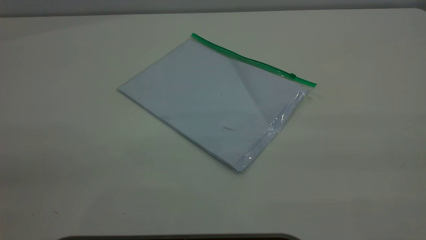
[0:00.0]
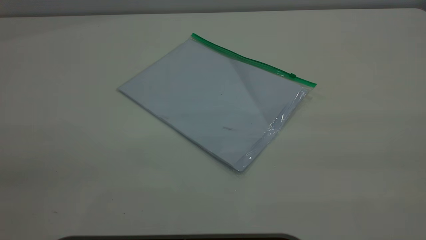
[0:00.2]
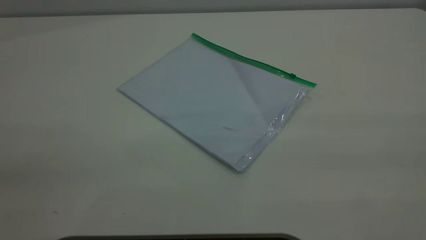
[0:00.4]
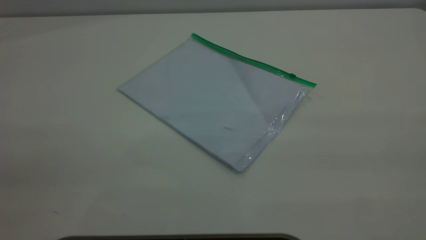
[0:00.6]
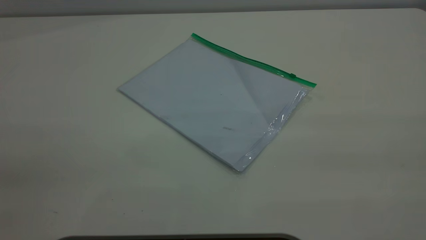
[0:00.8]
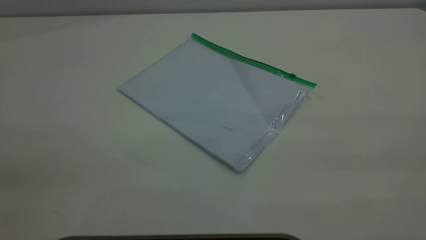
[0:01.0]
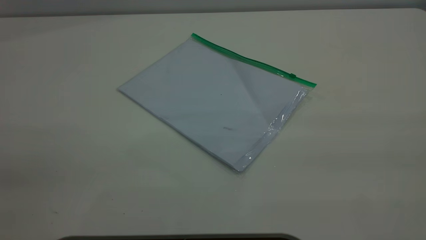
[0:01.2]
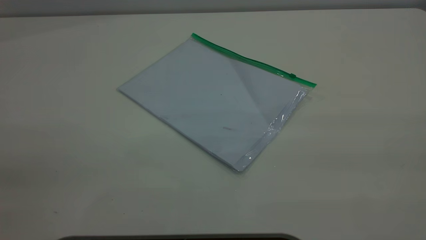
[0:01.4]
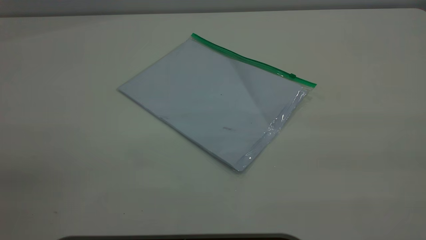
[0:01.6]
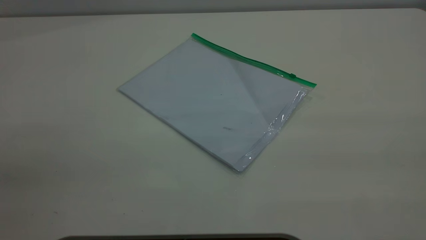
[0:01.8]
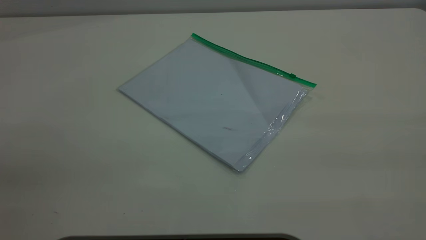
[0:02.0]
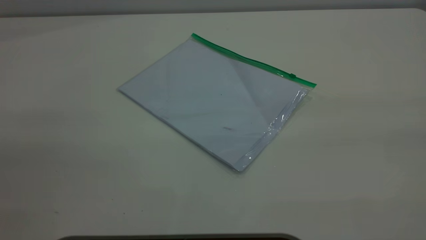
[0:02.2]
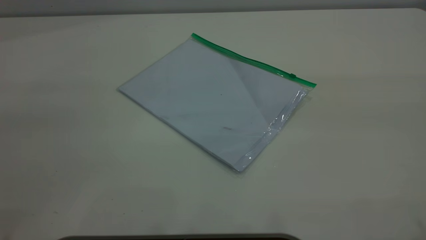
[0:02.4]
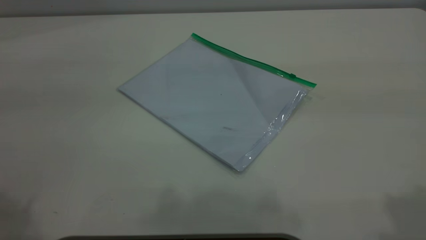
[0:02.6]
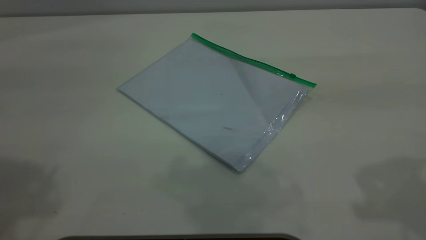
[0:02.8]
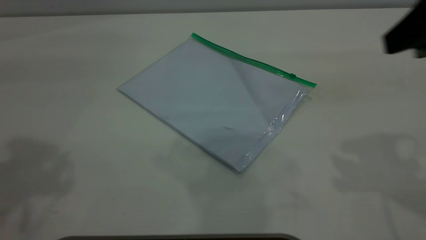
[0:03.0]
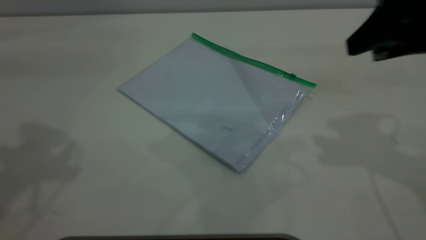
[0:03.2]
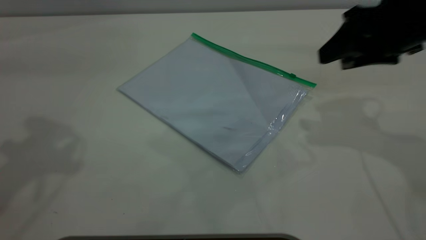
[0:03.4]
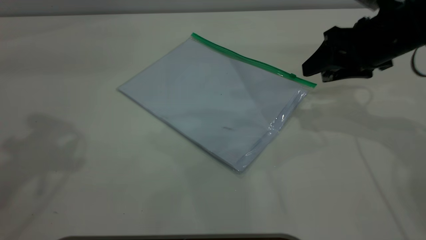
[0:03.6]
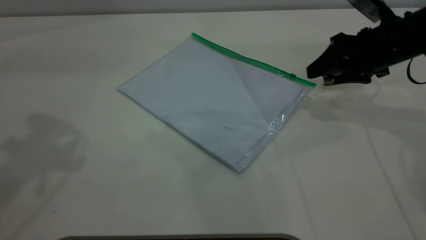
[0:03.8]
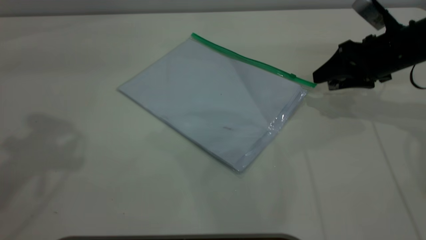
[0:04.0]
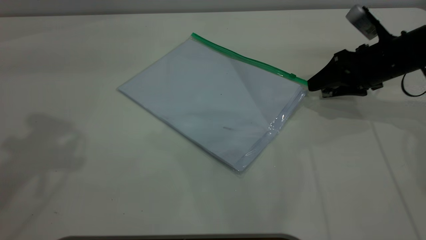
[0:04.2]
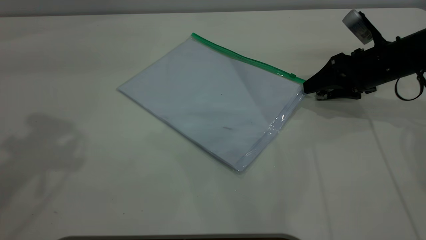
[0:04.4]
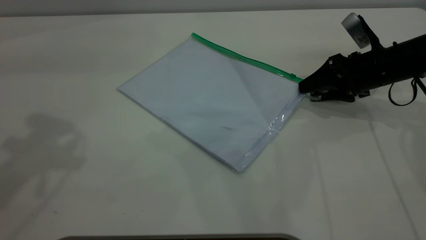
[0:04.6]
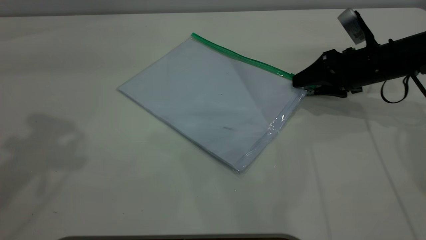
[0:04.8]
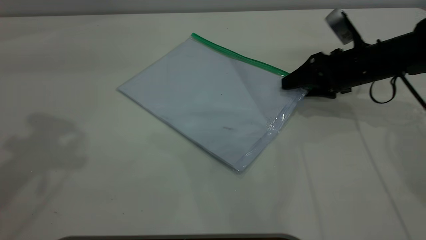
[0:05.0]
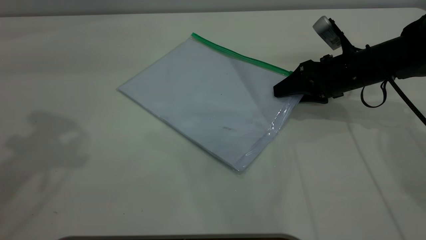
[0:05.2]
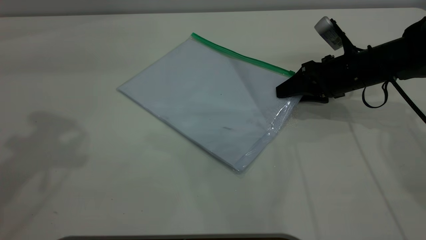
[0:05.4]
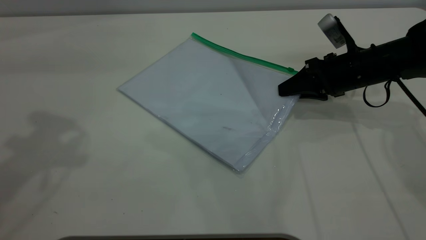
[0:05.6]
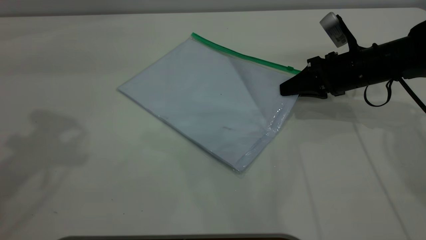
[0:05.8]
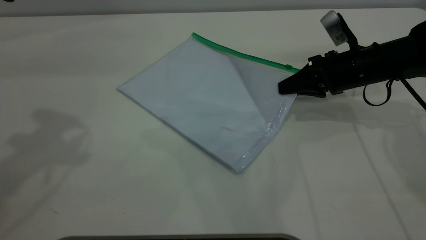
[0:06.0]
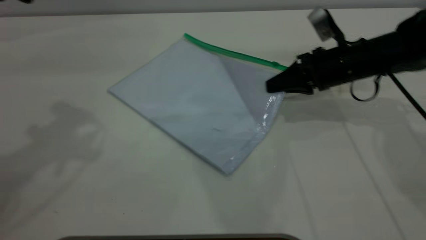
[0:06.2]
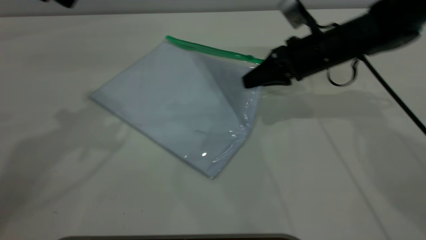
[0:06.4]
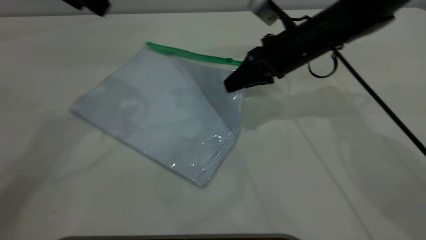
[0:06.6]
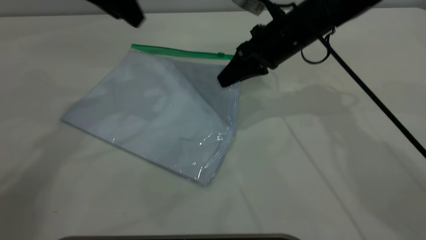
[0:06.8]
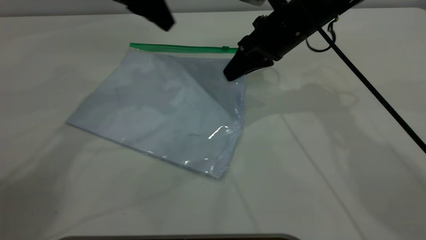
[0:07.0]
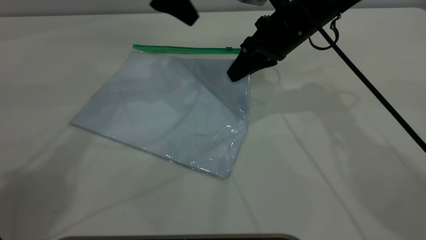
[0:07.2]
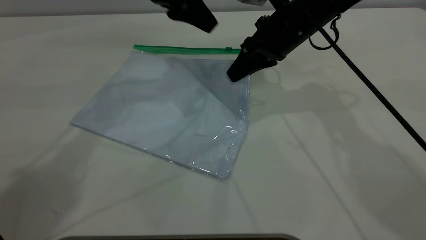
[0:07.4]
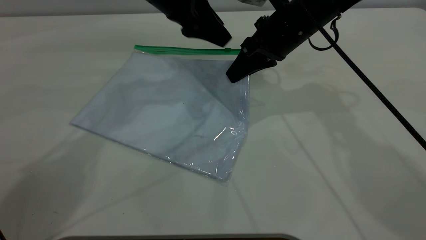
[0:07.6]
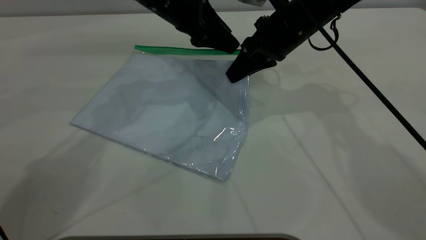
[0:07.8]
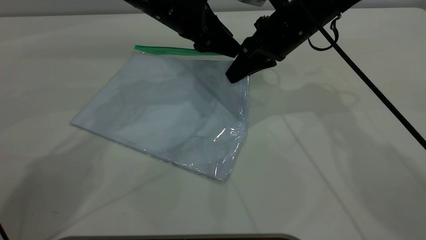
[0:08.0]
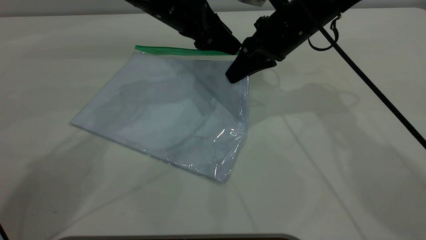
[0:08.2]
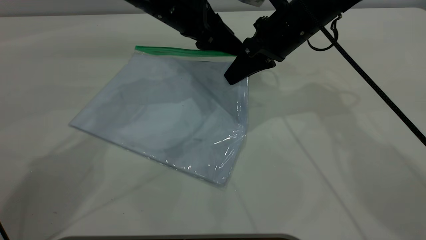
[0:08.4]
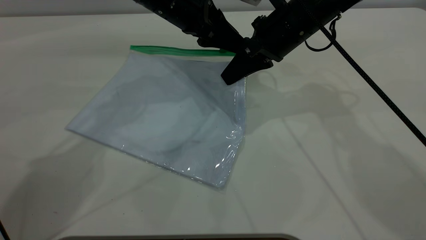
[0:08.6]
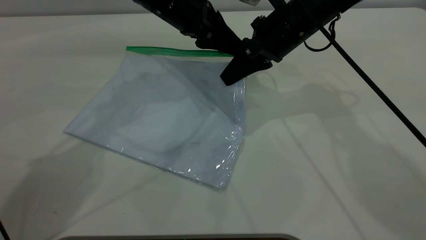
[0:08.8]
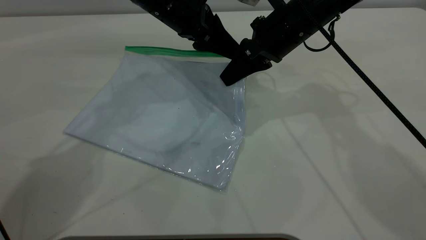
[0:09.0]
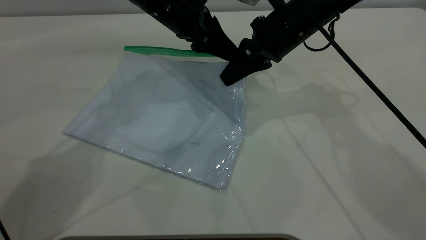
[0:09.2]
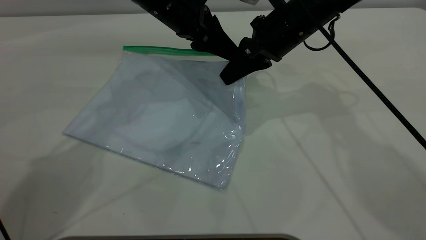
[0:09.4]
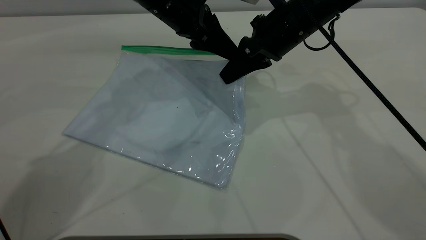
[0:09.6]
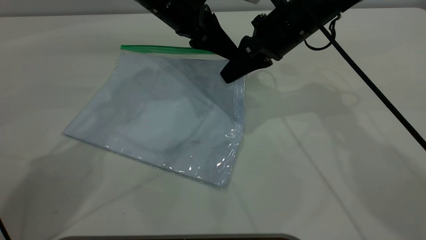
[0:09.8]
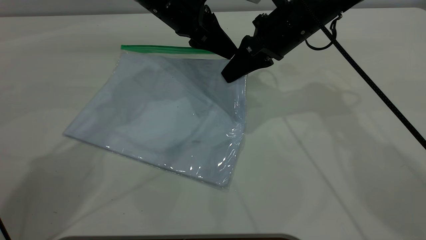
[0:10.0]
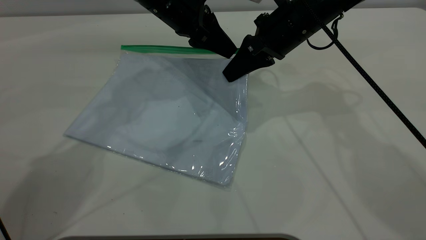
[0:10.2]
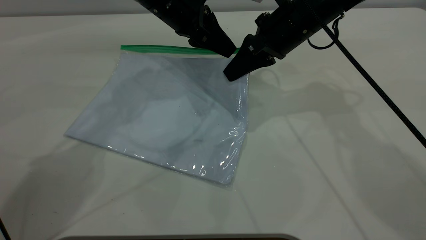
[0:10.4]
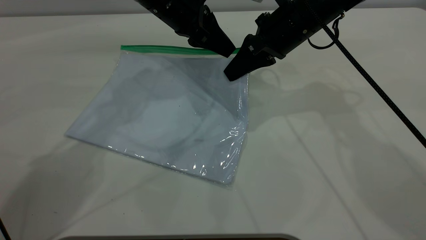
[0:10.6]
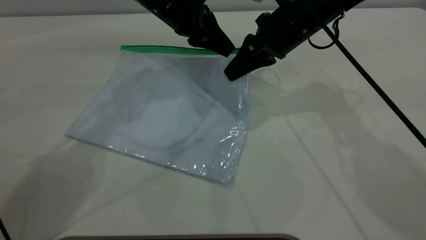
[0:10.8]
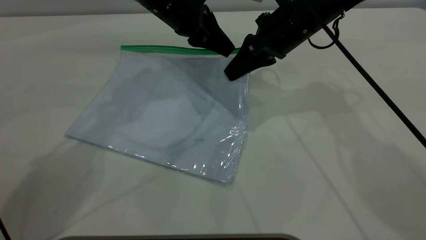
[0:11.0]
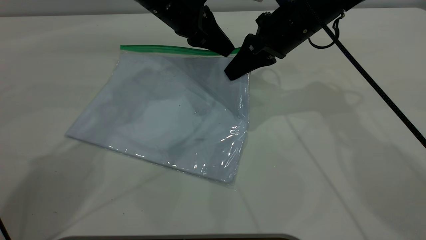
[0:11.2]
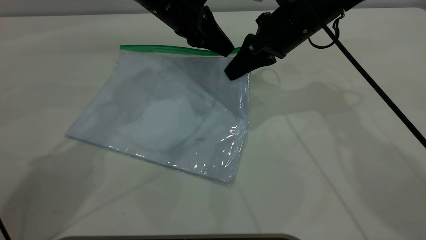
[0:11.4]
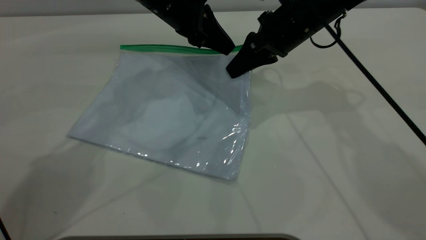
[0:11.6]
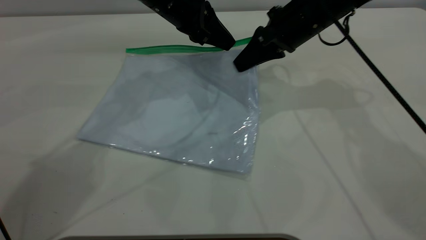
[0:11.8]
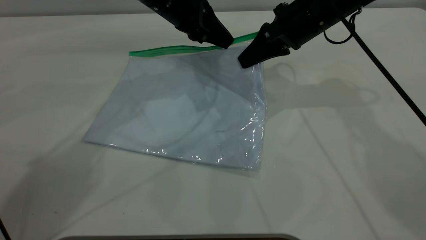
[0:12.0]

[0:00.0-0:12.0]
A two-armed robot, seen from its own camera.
Step, 0:00.0 to 0:06.8: Pick up the transparent plastic bag with the right gripper.
0:00.0 to 0:01.6: The two grippers keep their place.
0:01.6 to 0:03.0: The right gripper moves forward, roughly 25 cm.
0:03.0 to 0:04.4: The right gripper moves downward and forward, roughly 25 cm.
0:04.4 to 0:06.0: The right gripper closes up.
0:06.0 to 0:07.6: The left gripper goes some 30 cm to the right, downward and forward; the right gripper shifts roughly 15 cm to the left and upward.
0:07.6 to 0:09.0: There are only small adjustments of the grippers.
0:09.0 to 0:10.4: The left gripper closes.
0:10.4 to 0:12.0: The grippers stay close to where they were, moving slightly.

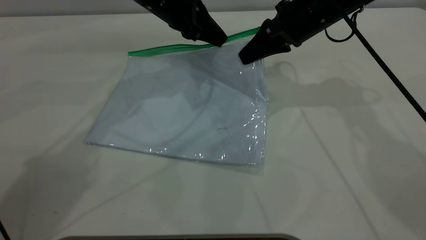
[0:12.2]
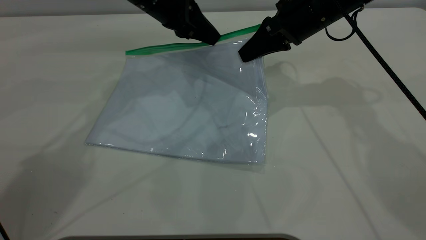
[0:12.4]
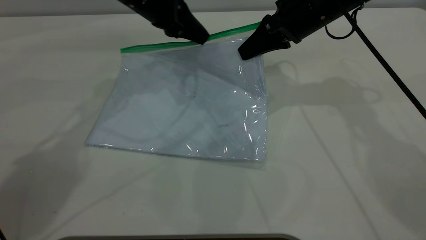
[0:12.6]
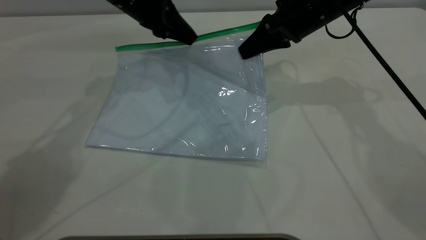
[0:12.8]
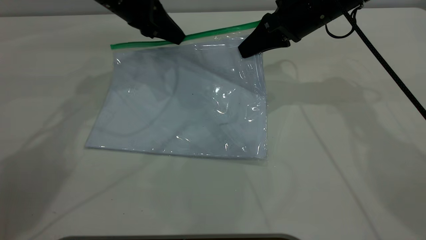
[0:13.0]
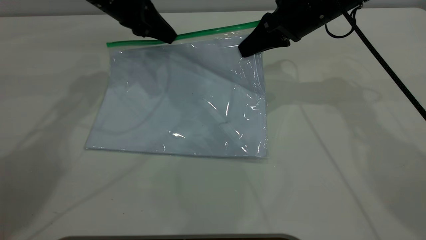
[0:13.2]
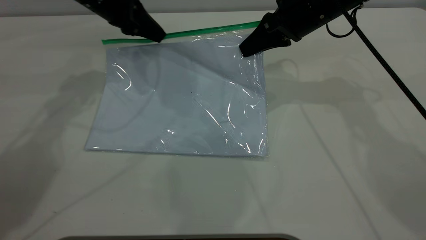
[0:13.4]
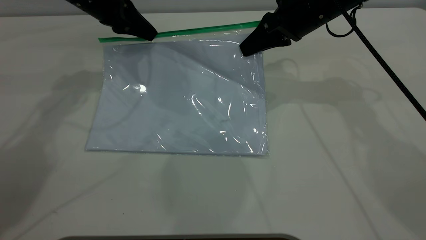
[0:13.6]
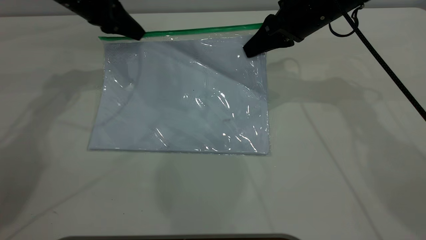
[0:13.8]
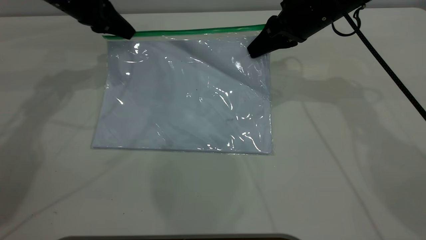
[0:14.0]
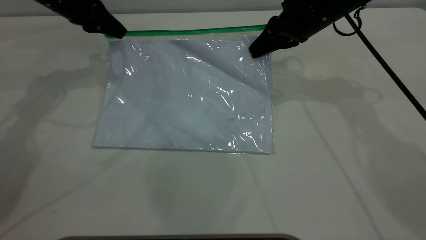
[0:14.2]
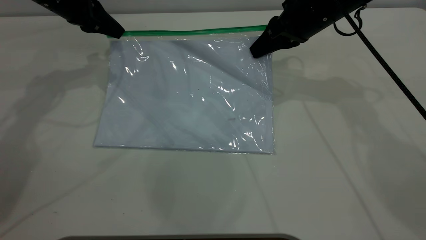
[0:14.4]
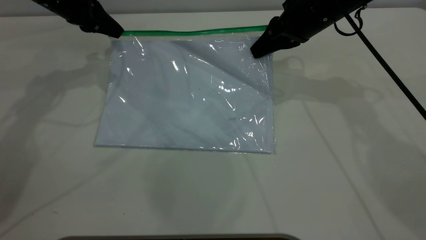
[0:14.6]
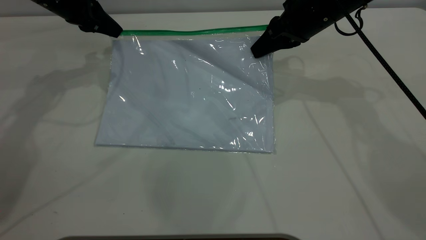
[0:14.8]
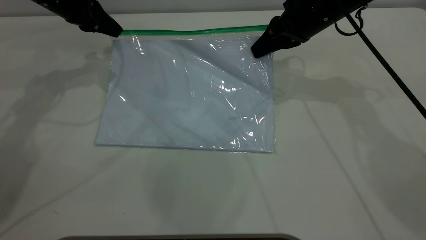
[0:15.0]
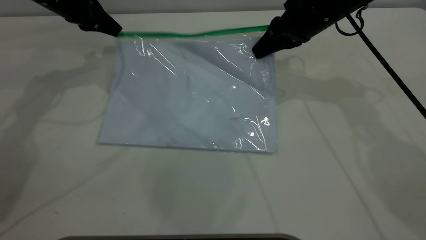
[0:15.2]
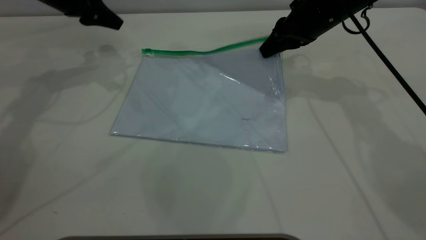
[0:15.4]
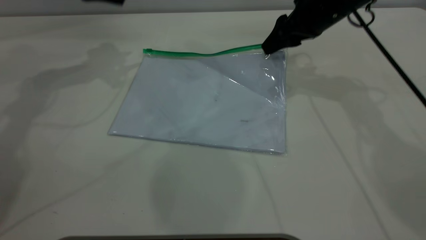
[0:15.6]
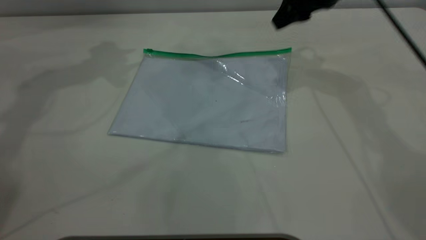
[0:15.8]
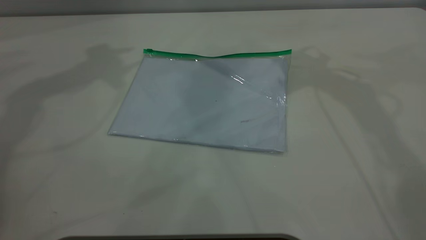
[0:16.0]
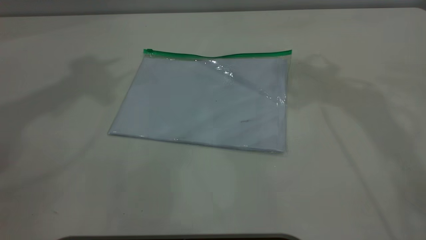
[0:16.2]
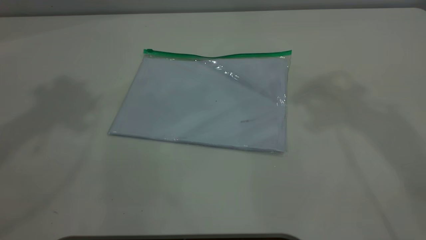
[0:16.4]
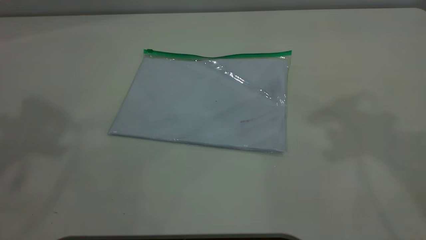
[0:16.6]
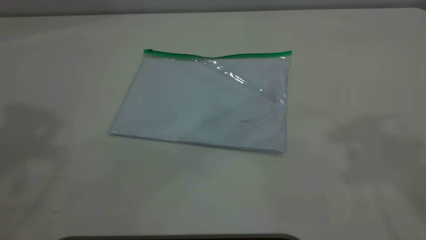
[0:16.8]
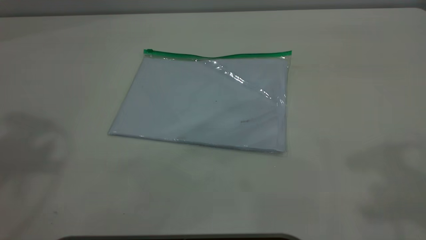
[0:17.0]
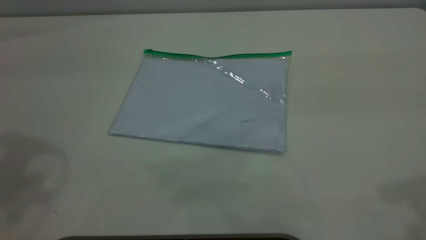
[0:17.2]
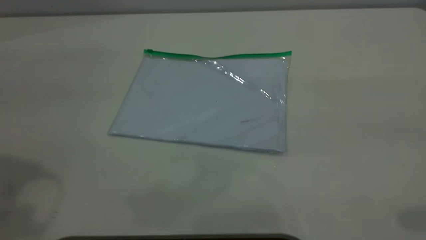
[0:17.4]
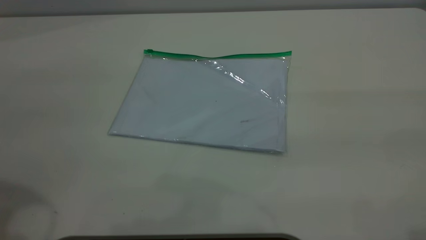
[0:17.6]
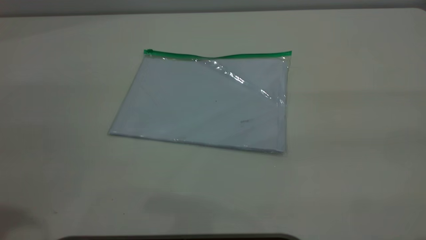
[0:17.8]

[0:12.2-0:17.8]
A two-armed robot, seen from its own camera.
Step, 0:12.2 to 0:15.2: Pulling up the zipper on the transparent plastic bag with the left gripper to close it.
Step, 0:15.4 to 0:16.4: Place the transparent plastic bag.
0:12.2 to 0:13.6: The left gripper moves to the left, some 10 cm.
0:13.6 to 0:15.0: The left gripper moves to the left, approximately 5 cm.
0:15.0 to 0:16.4: The left gripper shifts approximately 40 cm upward and backward, and opens its fingers, while the right gripper shifts about 30 cm upward, and opens up.
